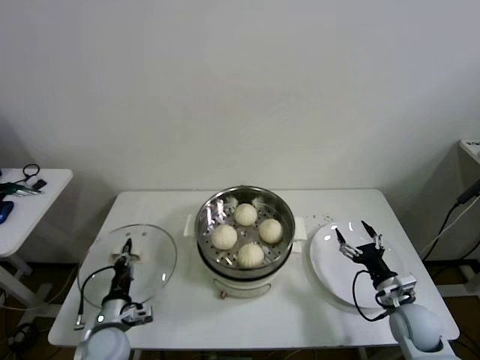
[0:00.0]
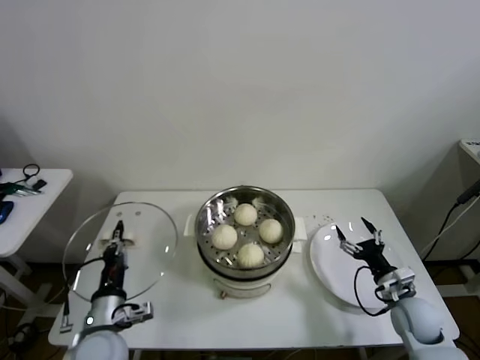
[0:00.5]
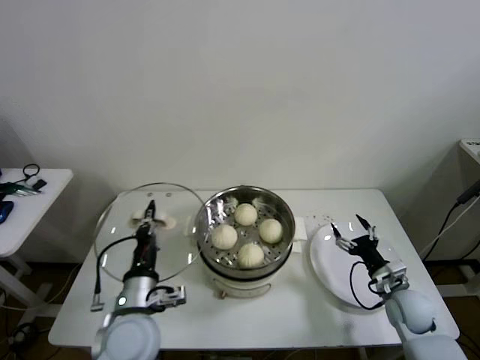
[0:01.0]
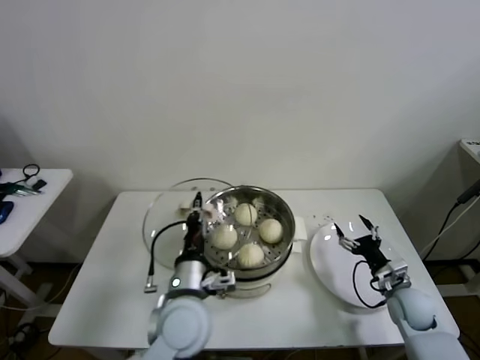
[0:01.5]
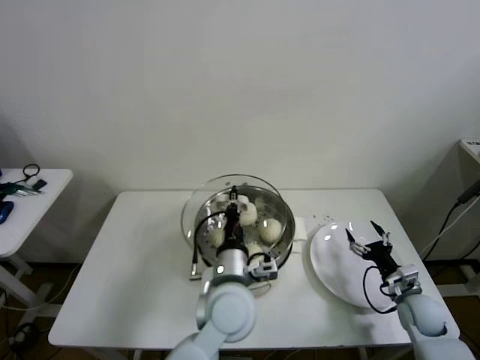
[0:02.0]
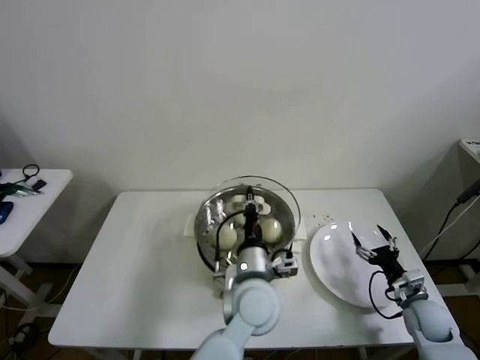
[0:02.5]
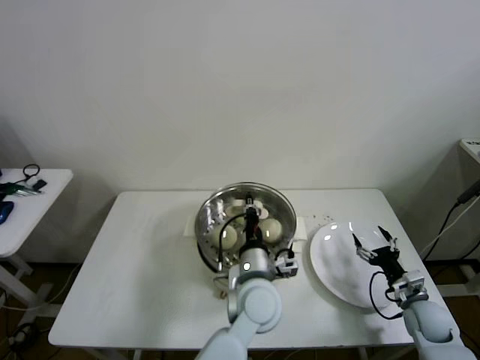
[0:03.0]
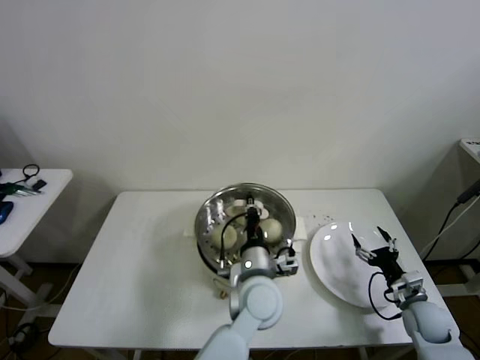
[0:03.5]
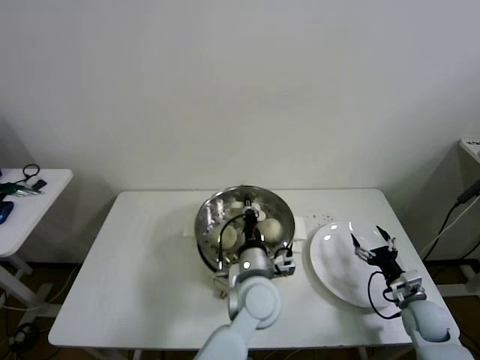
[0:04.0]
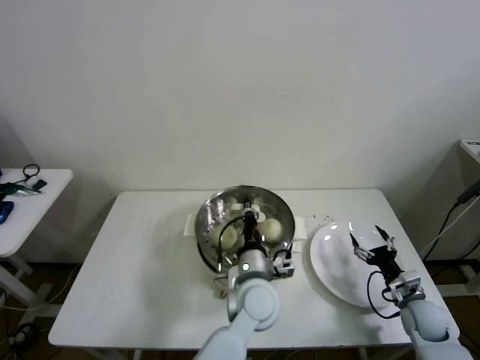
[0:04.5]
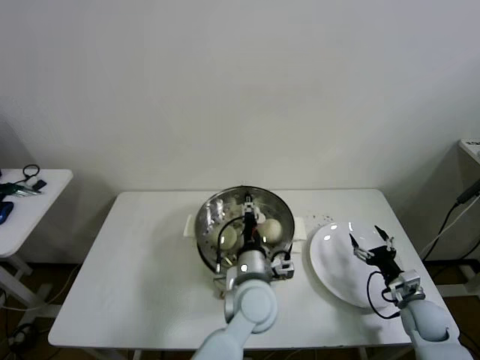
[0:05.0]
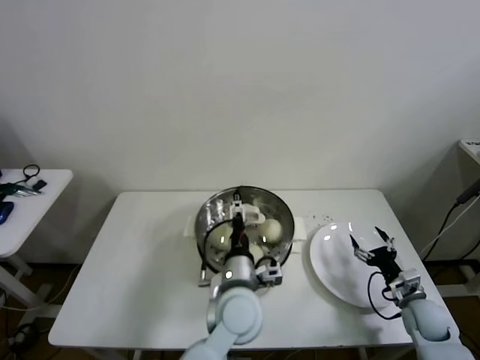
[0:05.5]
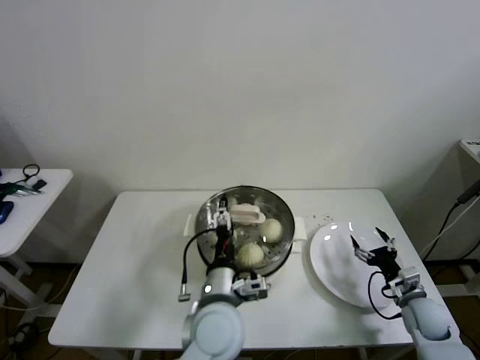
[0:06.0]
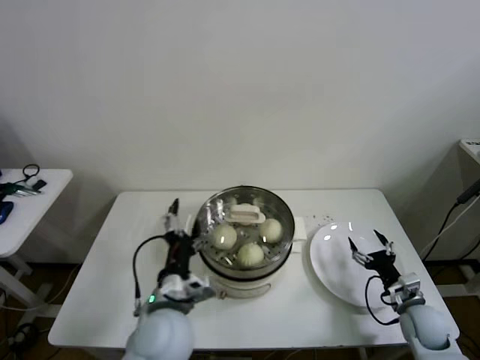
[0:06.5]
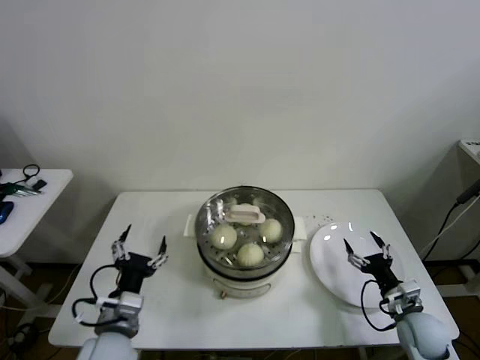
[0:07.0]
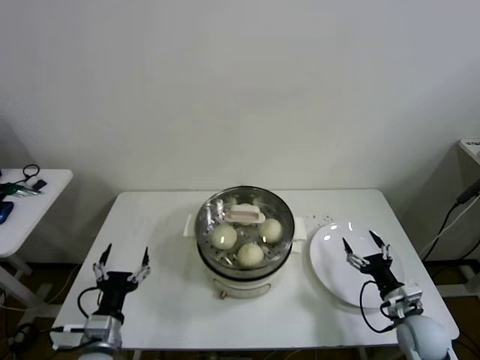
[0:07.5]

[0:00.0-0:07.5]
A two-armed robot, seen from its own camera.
Step, 0:00.0 to 0:04.5: Place the pot lid on the steamer with left gripper.
0:00.0 to 0:02.0: The right gripper shifts by approximately 5 cm. Meanwhile the left gripper travels to the right and upward by roughly 30 cm.
0:02.0 to 0:04.0: The left gripper heads to the right, covering some 5 cm.
0:04.0 to 0:05.5: The left gripper opens up.
0:05.5 to 0:07.5: The right gripper shifts by some 5 cm; the left gripper goes approximately 30 cm to the left.

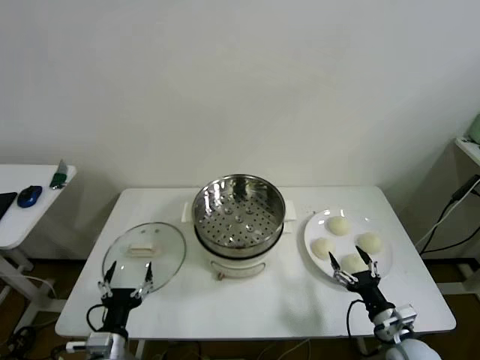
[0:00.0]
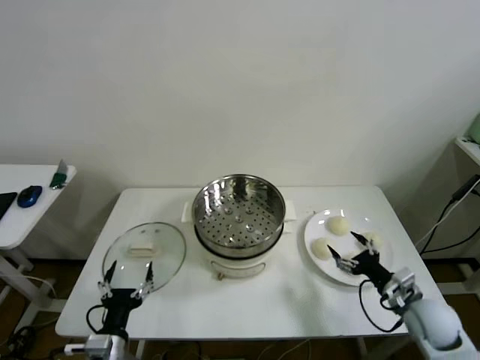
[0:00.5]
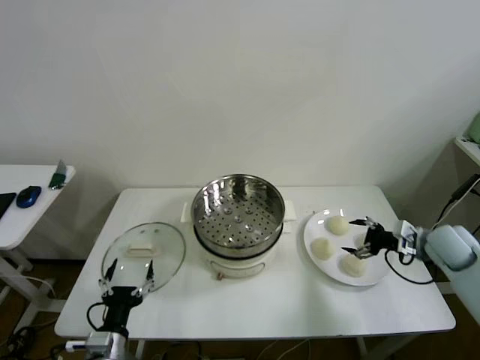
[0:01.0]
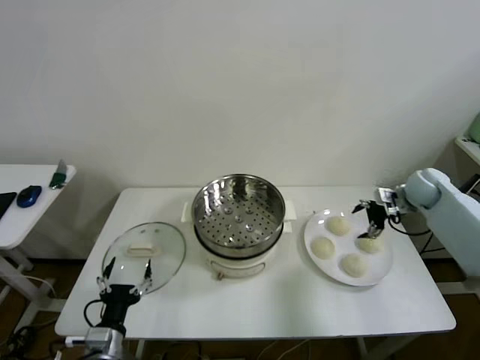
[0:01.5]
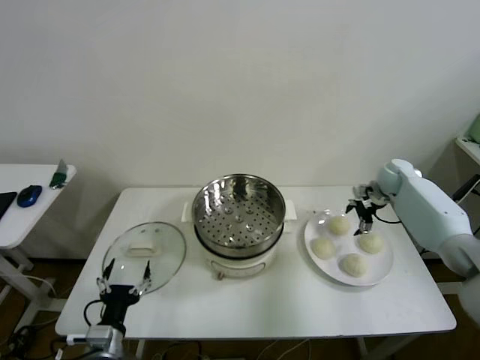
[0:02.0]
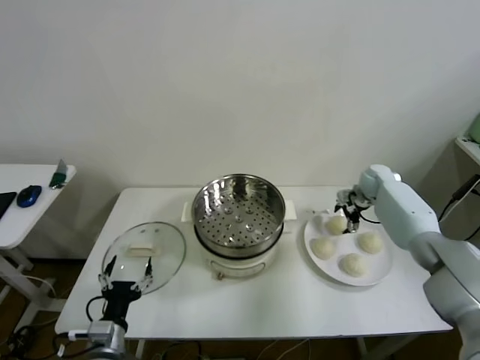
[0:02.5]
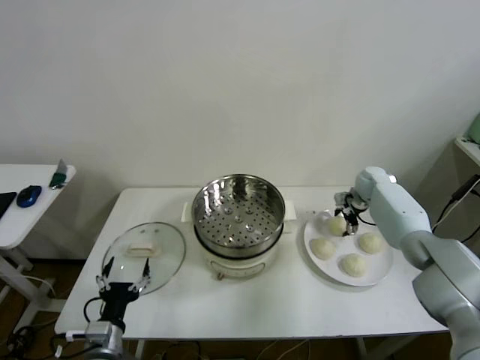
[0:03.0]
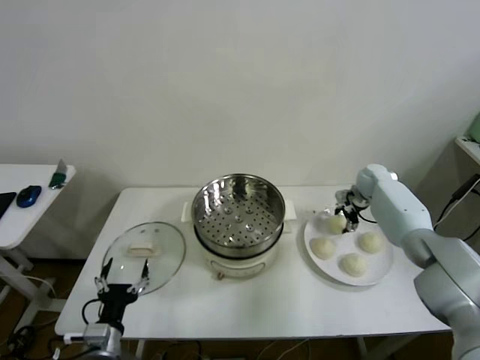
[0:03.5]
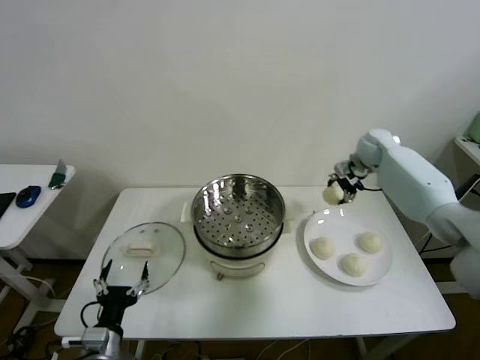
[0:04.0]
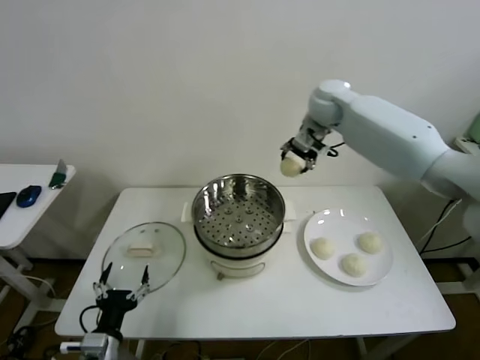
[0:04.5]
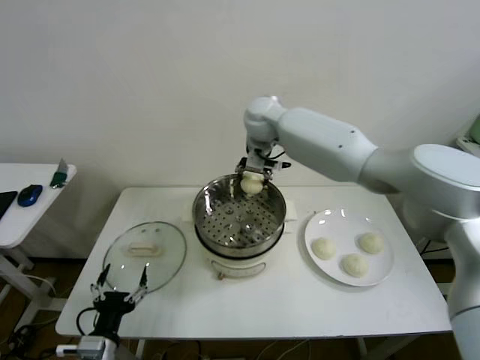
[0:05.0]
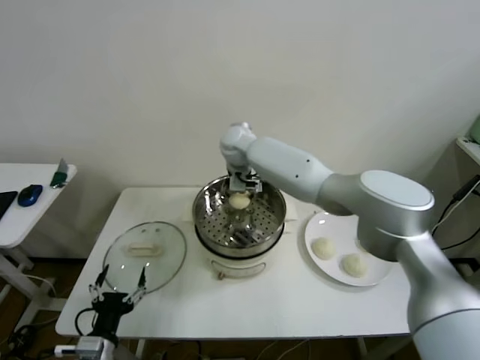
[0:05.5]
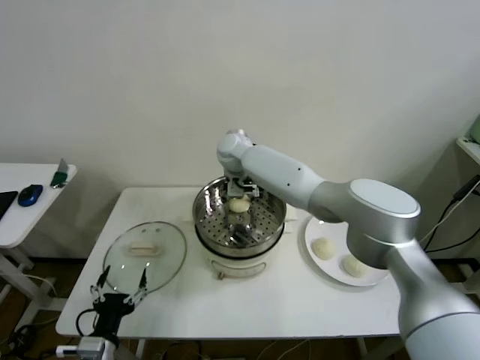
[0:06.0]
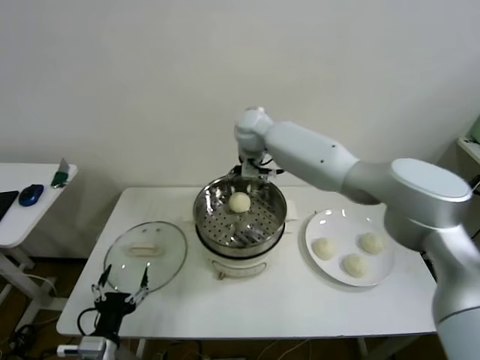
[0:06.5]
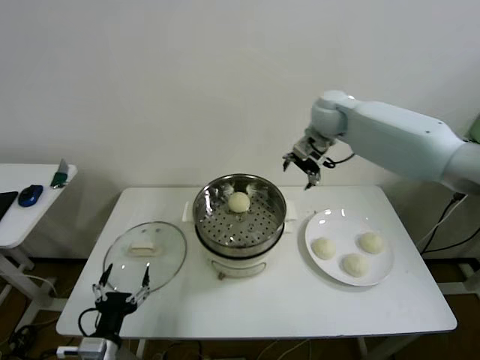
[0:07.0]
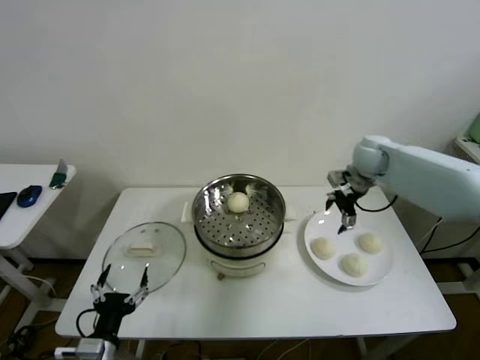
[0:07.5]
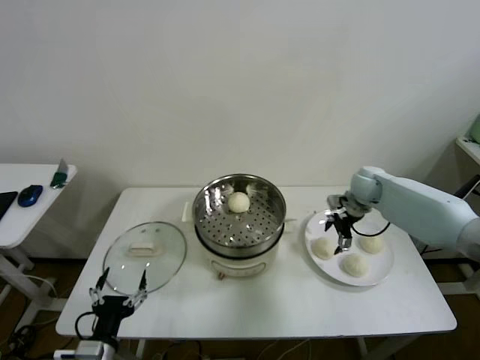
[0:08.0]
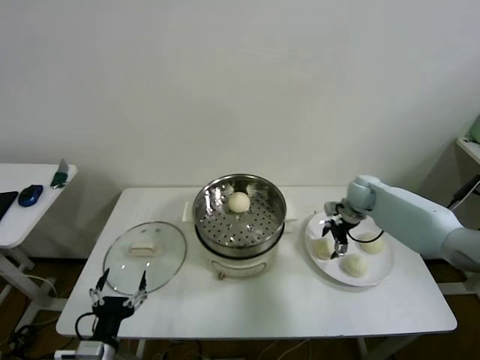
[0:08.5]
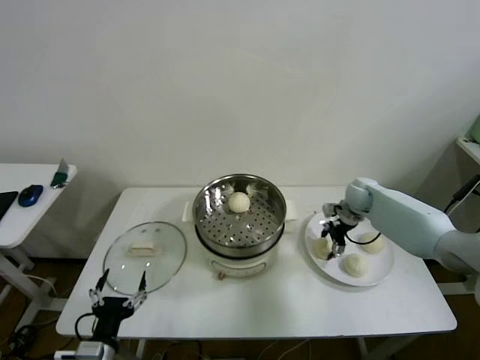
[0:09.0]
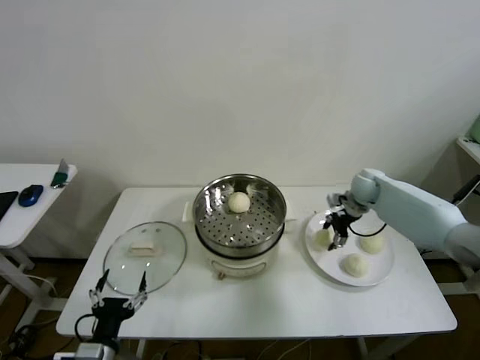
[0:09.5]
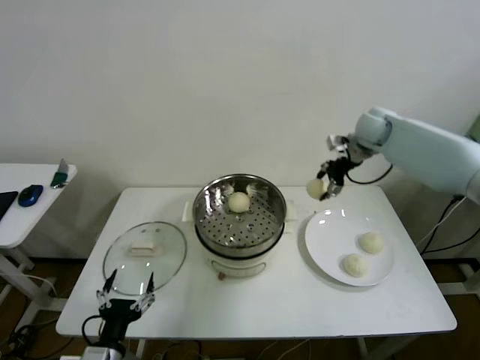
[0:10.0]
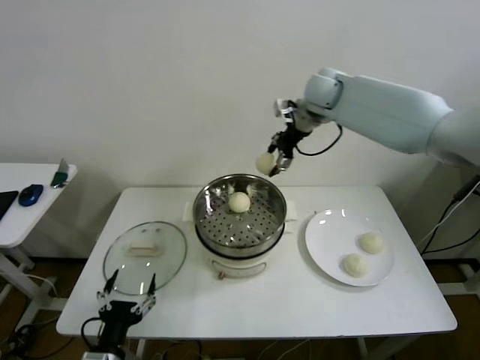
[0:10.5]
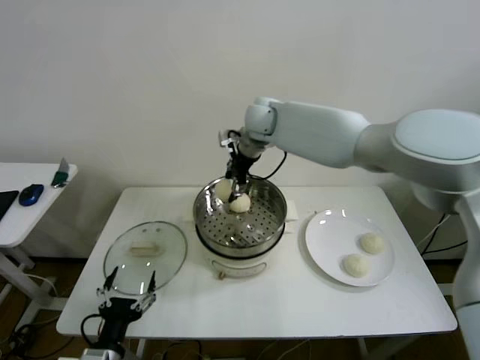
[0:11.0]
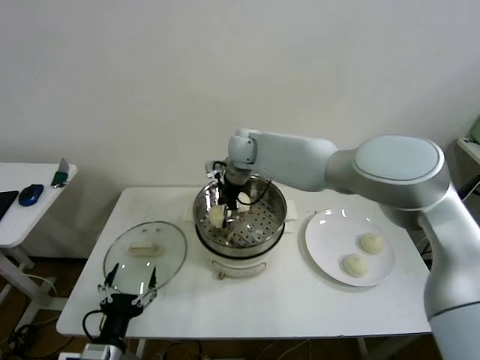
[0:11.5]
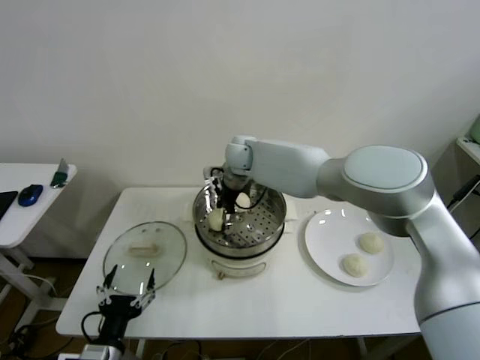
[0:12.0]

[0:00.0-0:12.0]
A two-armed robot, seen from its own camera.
Step, 0:00.0 to 0:03.0: Grasp the baozi in the plate with right gripper.
Step, 0:03.5 to 0:05.5: Place the baozi on the steamer with right gripper.
Step, 0:06.5 to 0:09.0: Grasp the baozi in the plate with right gripper.
0:02.0 to 0:04.0: The right gripper moves upward and to the left, approximately 10 cm, and closes its fingers.
0:04.0 to 0:06.0: The right gripper heads to the left, covering some 35 cm, and opens its fingers.
0:06.0 to 0:08.0: The right gripper goes approximately 35 cm to the right.
0:08.0 to 0:10.0: The right gripper goes some 15 cm upward, and closes its fingers.
0:10.0 to 0:12.0: The right gripper is displaced to the left by some 30 cm.

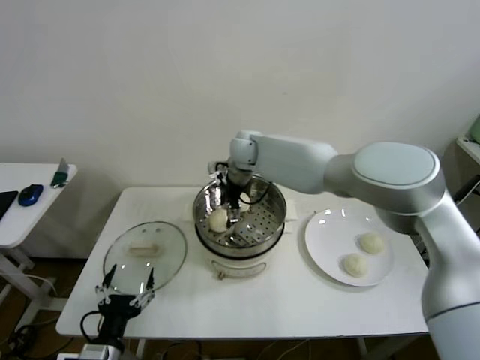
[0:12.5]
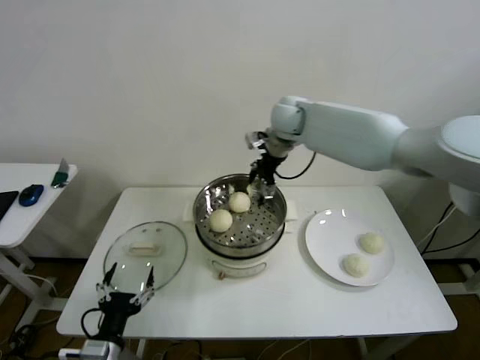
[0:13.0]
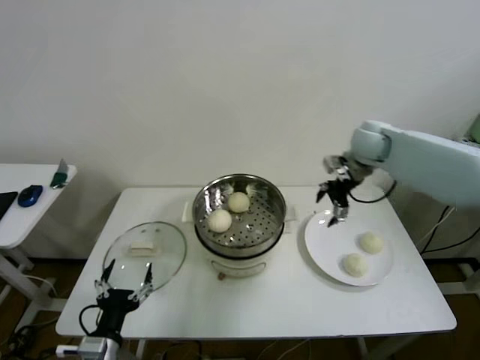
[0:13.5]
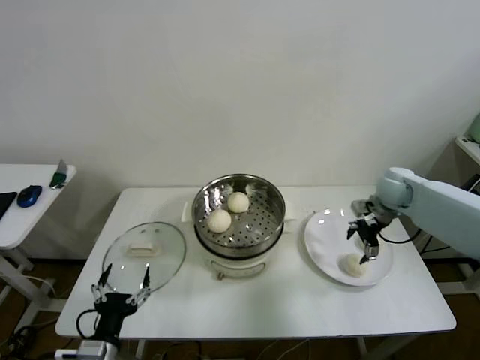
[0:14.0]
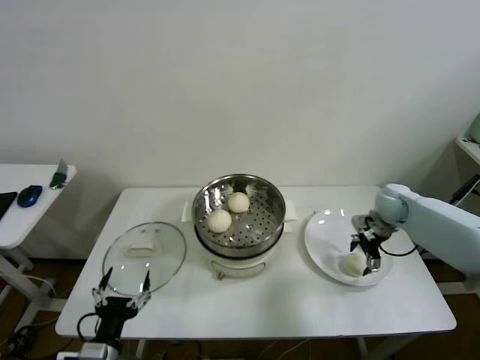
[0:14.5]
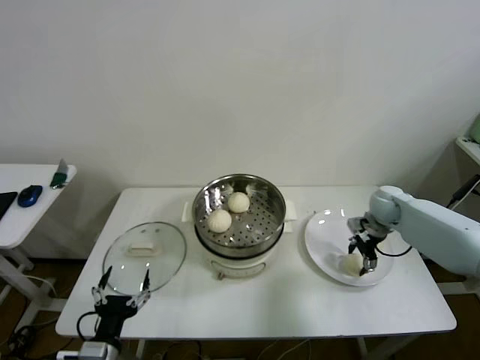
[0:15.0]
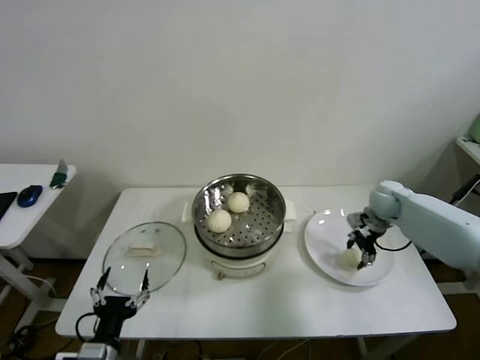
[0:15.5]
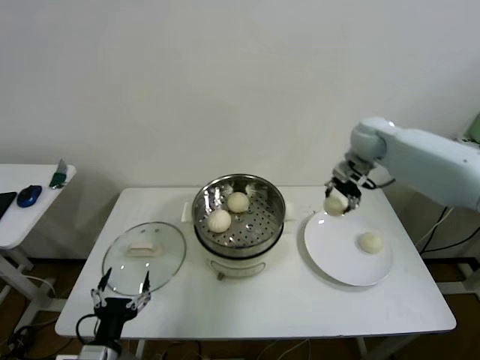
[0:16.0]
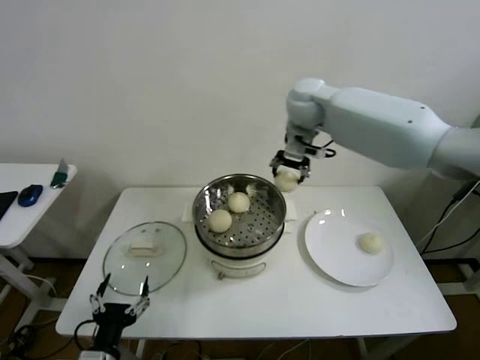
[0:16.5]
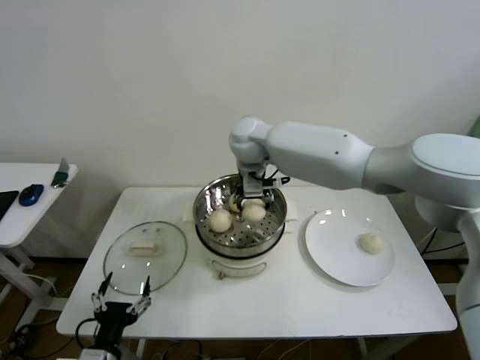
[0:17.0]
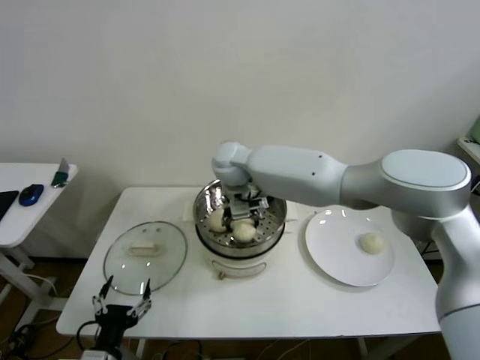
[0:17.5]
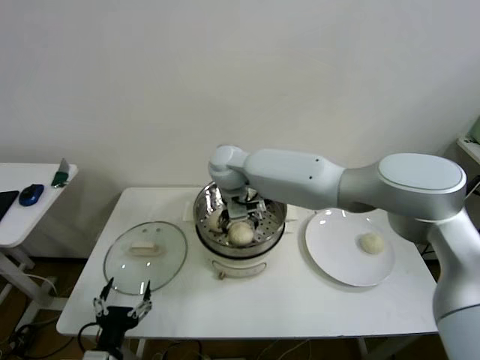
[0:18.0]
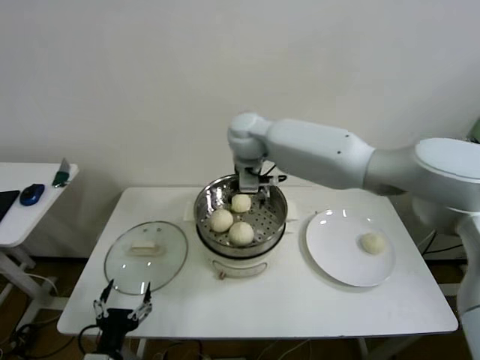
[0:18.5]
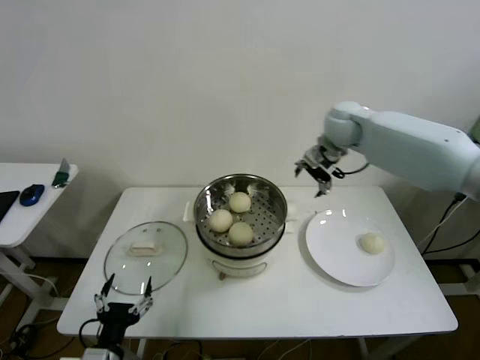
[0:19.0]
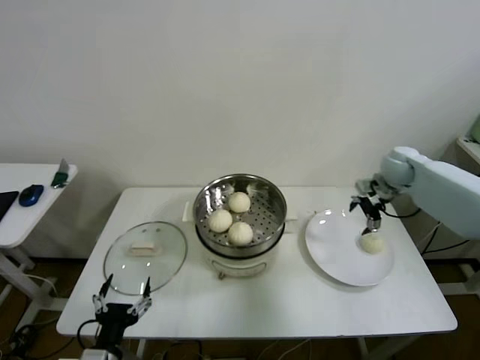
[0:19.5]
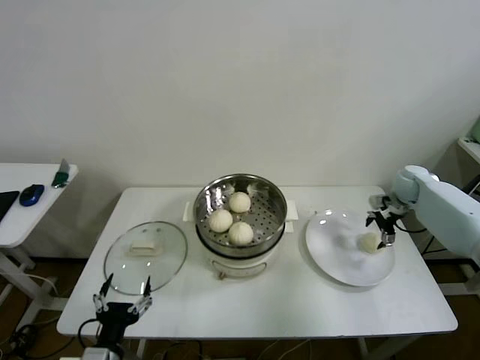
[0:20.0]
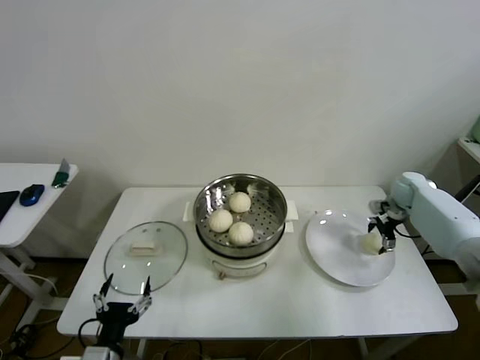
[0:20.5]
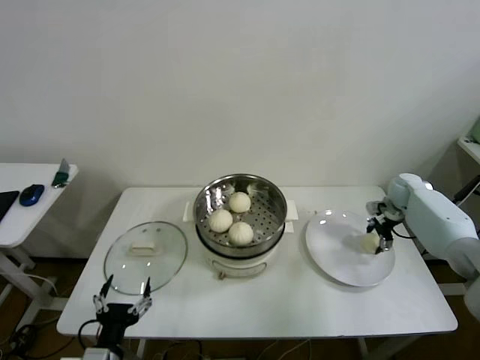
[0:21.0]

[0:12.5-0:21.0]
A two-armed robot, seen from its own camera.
Step, 0:13.0 to 0:15.0: Grasp the baozi in the plate with right gripper.
Step, 0:15.5 to 0:18.0: Place the baozi on the steamer with right gripper.
Step, 0:18.5 to 0:21.0: Grasp the baozi in the plate with right gripper.
0:12.5 to 0:14.5: The right gripper heads to the right, covering some 40 cm.
0:14.5 to 0:16.5: The right gripper heads upward and to the left, covering some 35 cm, and closes.
0:16.5 to 0:19.0: The right gripper goes approximately 5 cm downward, moves some 15 cm to the left and comes back, and opens.
0:19.0 to 0:21.0: The right gripper heads to the right and downward, covering about 30 cm, and closes its fingers.
